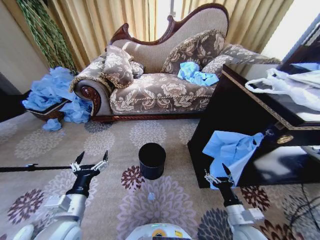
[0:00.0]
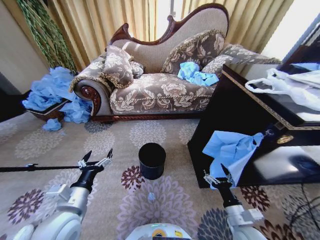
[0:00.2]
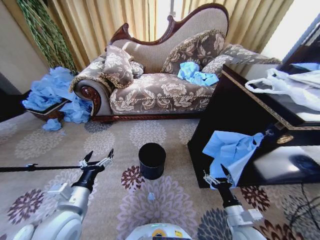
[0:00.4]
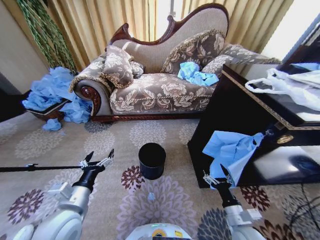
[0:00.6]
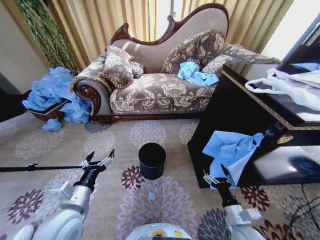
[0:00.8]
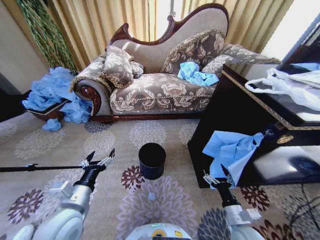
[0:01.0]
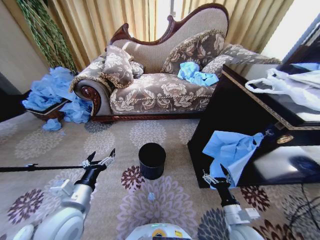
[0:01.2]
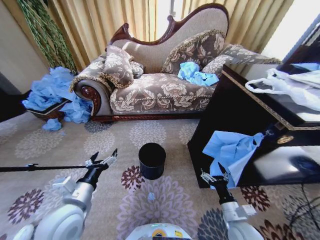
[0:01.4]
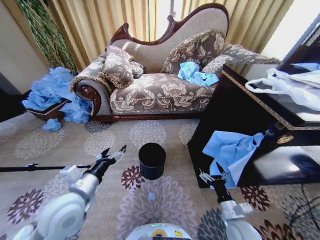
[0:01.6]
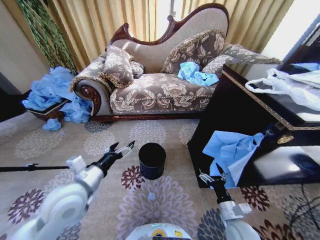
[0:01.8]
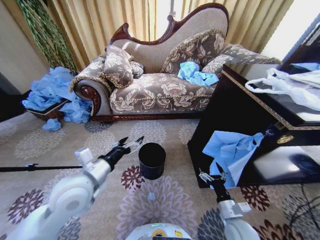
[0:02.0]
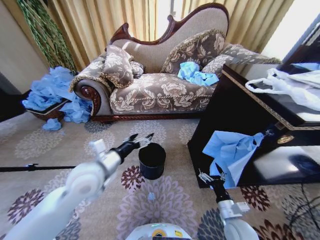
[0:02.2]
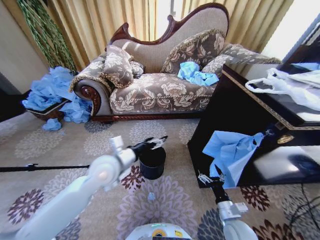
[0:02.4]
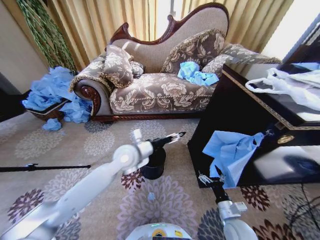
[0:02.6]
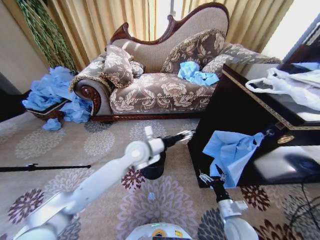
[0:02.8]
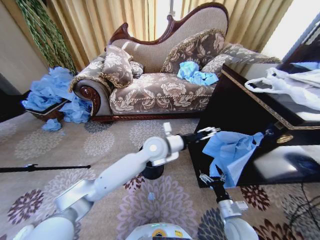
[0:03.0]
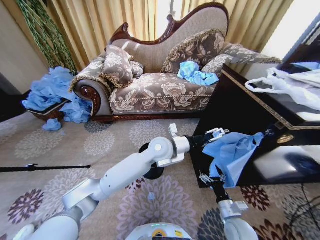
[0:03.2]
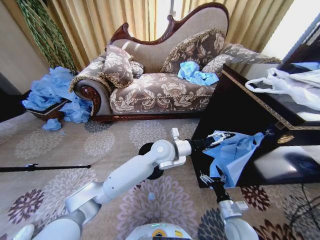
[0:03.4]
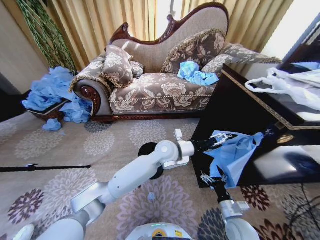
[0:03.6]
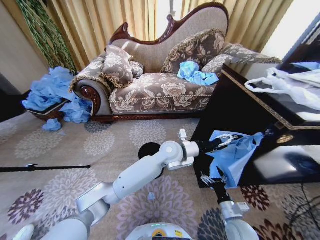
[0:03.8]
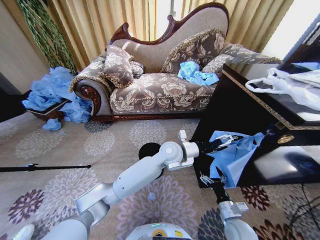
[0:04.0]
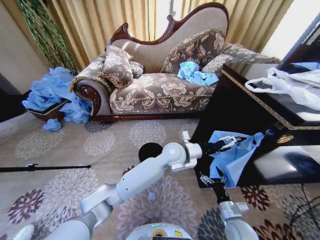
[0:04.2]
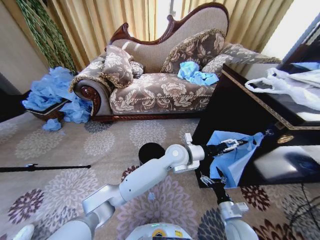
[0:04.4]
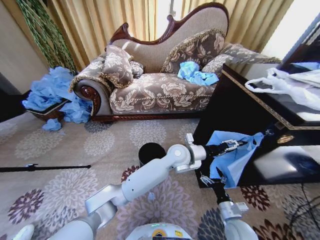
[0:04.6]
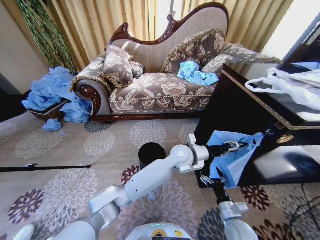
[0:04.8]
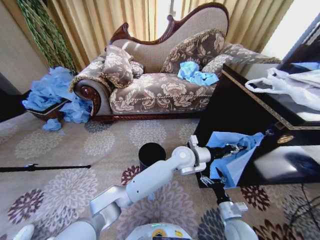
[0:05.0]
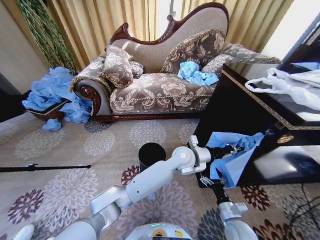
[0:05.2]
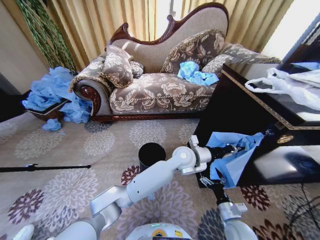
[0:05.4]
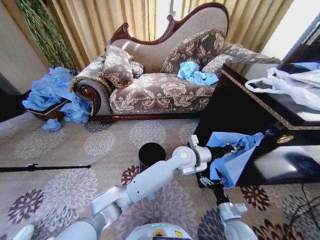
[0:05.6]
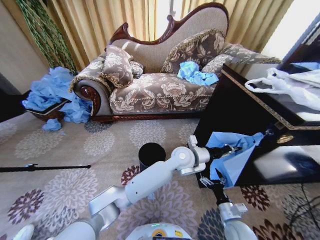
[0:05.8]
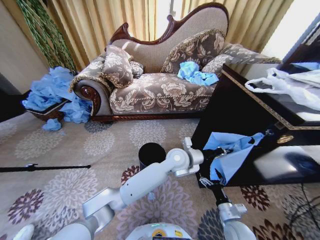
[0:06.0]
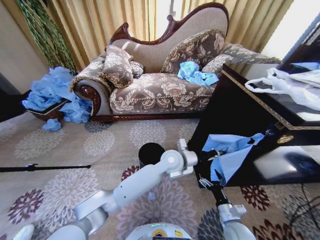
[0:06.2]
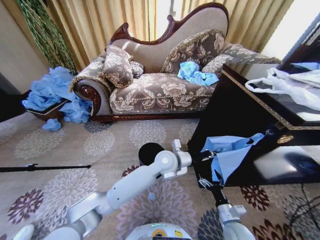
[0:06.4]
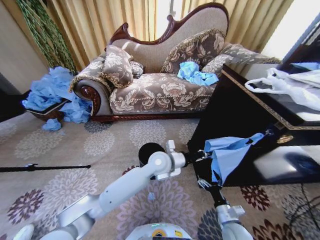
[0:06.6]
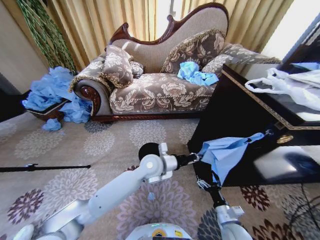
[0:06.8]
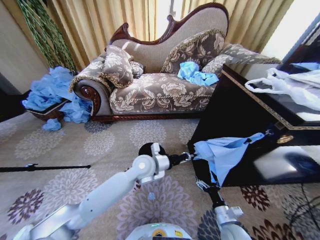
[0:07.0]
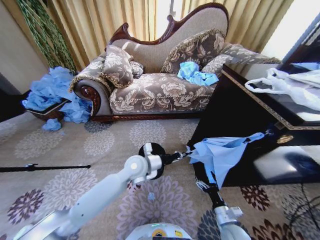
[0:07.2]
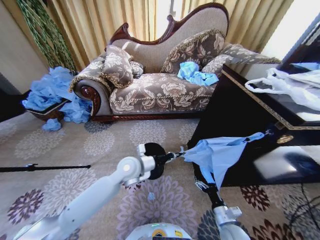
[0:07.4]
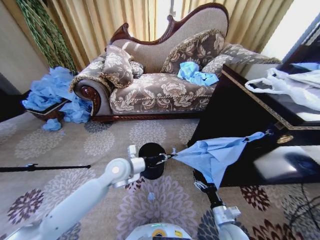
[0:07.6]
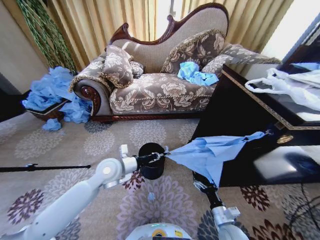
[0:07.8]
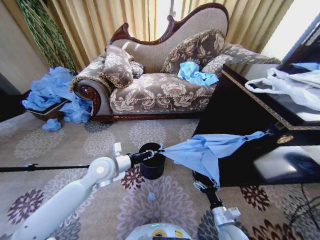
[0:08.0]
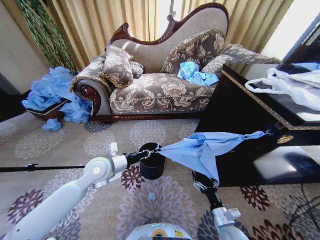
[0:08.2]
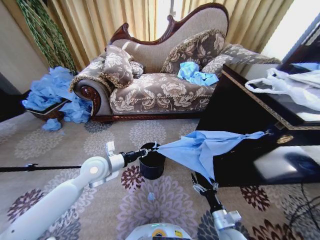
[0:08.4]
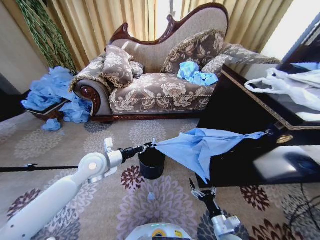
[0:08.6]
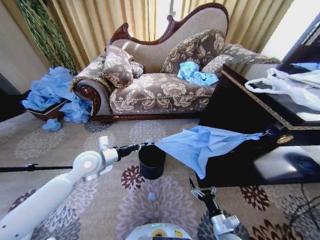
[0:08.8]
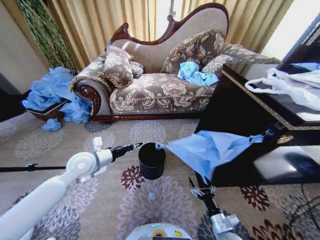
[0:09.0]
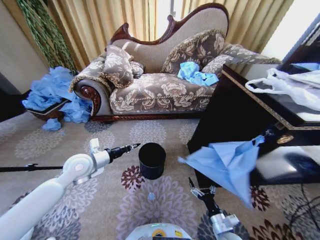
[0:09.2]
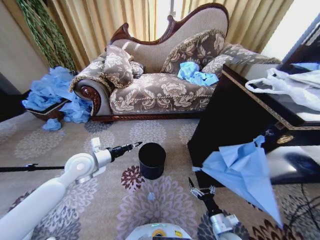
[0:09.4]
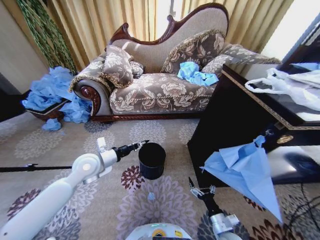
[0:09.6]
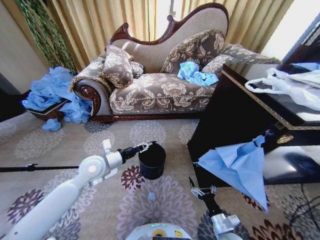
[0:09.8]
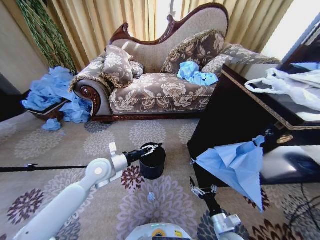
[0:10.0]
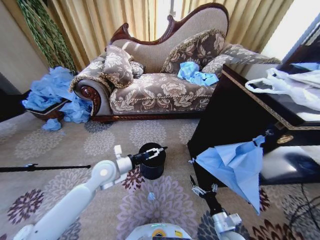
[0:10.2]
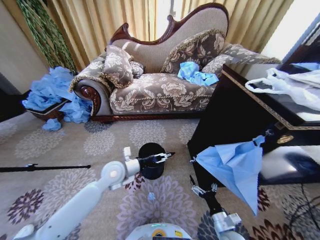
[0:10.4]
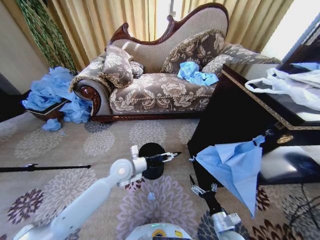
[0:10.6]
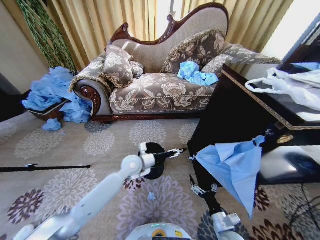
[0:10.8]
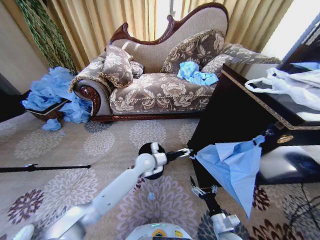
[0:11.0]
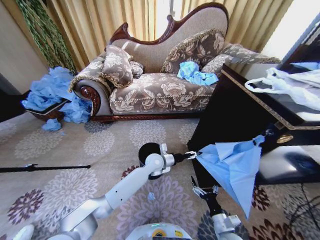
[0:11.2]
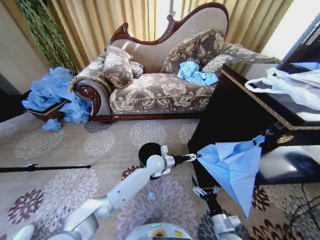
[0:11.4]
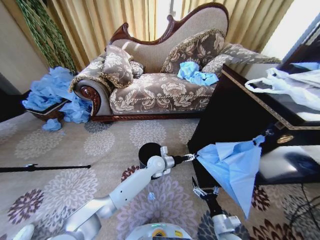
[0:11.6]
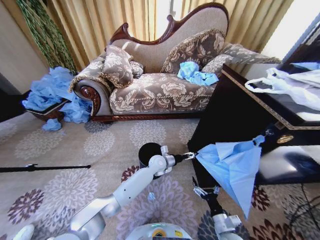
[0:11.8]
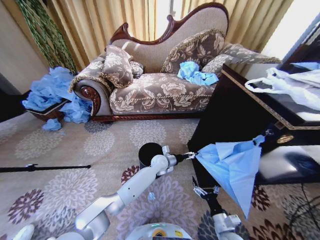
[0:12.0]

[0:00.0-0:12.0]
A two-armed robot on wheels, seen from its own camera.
Task of the whole recording: Place a garbage bag over the trash bin.
0:01.6 to 0:03.0: The left gripper heads to the right and forward, covering roughly 30 cm.
0:03.0 to 0:04.4: The left gripper goes about 10 cm to the right.
0:04.4 to 0:06.0: The left gripper closes.
0:06.0 to 0:07.6: The left gripper heads to the left, covering approximately 20 cm.
0:07.6 to 0:09.0: The left gripper heads to the left, covering approximately 15 cm.
0:09.0 to 0:10.4: The left gripper heads to the right and downward, covering some 10 cm, and opens.
0:10.4 to 0:12.0: The left gripper moves to the right, forward and downward, approximately 25 cm.

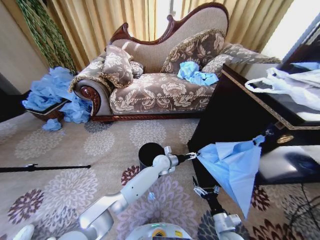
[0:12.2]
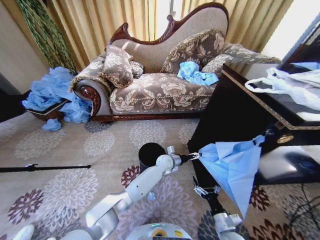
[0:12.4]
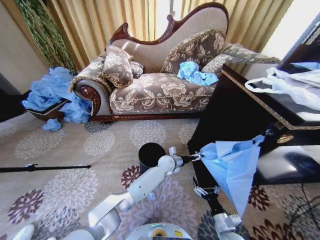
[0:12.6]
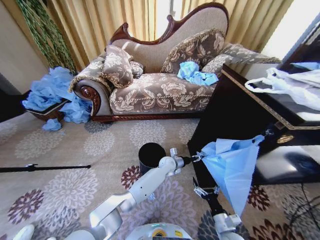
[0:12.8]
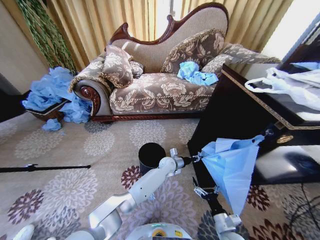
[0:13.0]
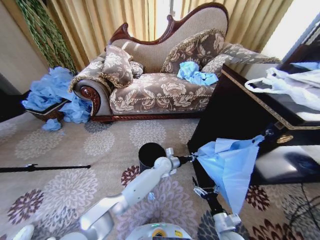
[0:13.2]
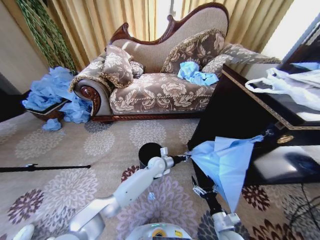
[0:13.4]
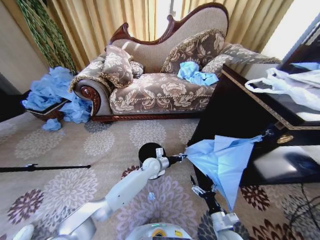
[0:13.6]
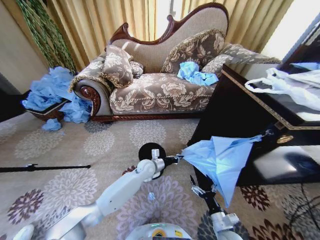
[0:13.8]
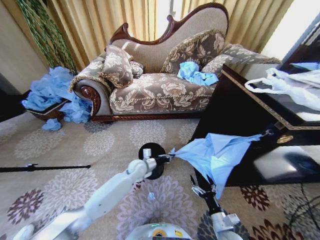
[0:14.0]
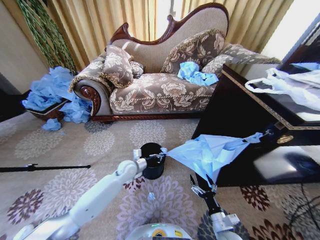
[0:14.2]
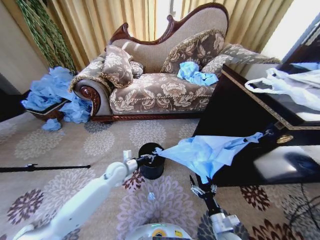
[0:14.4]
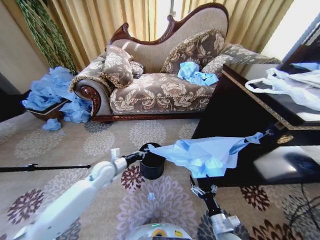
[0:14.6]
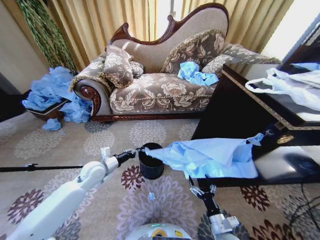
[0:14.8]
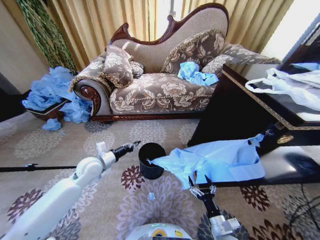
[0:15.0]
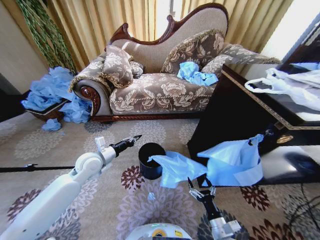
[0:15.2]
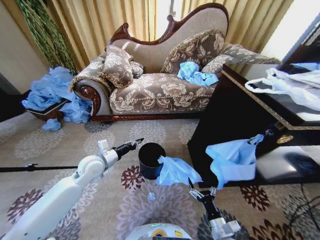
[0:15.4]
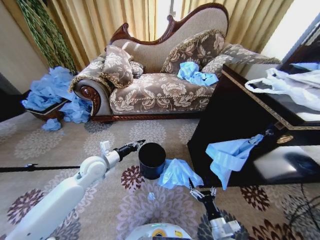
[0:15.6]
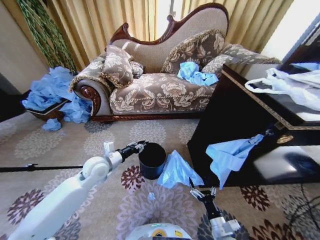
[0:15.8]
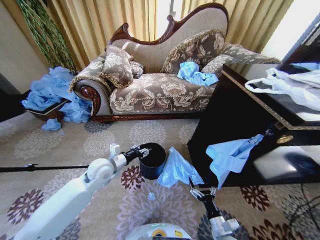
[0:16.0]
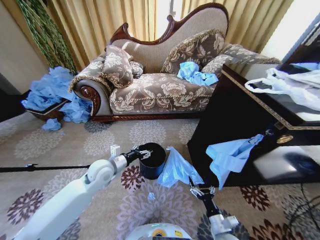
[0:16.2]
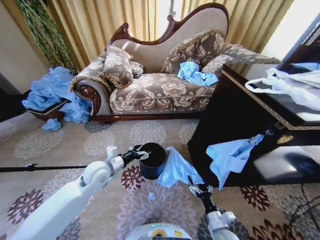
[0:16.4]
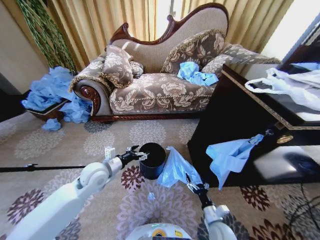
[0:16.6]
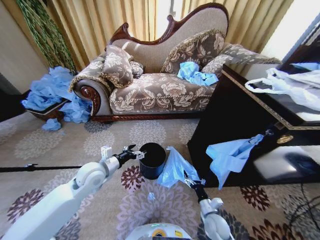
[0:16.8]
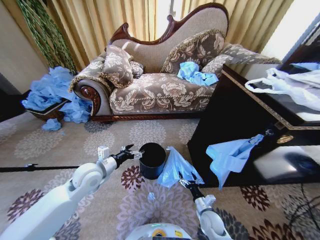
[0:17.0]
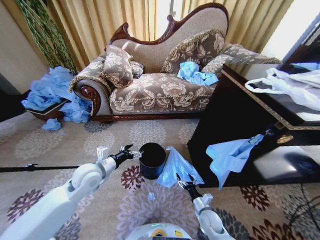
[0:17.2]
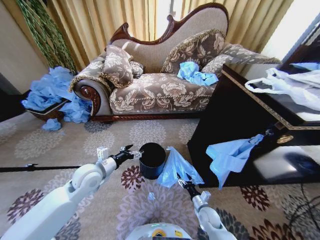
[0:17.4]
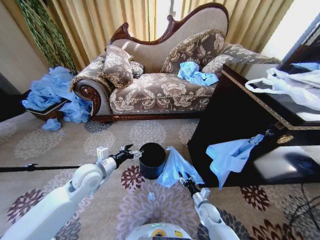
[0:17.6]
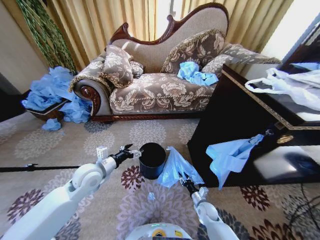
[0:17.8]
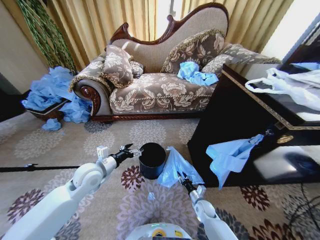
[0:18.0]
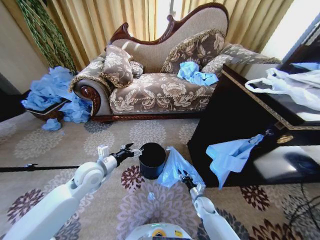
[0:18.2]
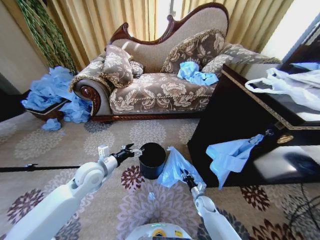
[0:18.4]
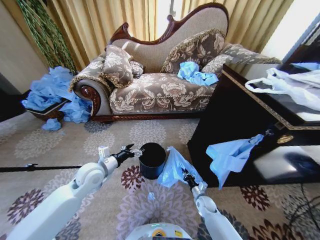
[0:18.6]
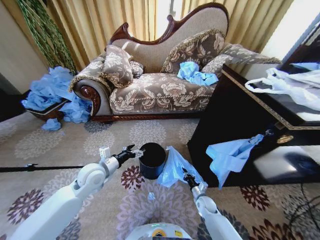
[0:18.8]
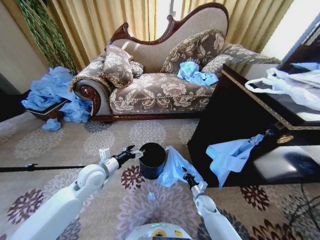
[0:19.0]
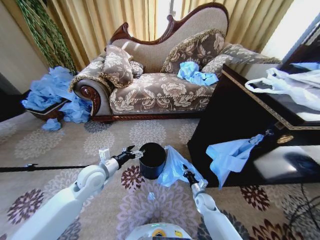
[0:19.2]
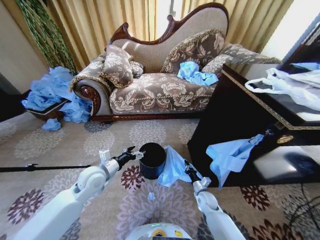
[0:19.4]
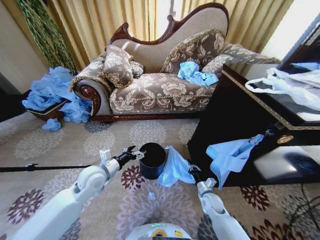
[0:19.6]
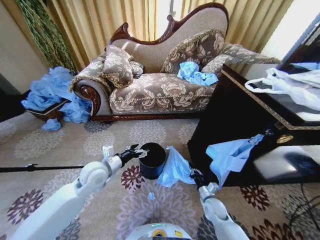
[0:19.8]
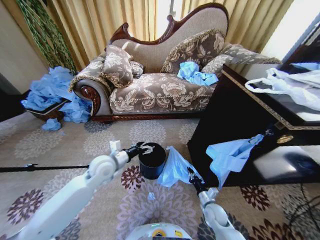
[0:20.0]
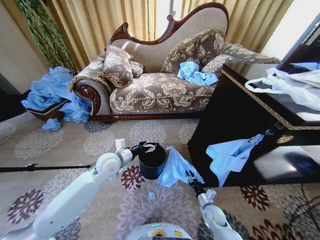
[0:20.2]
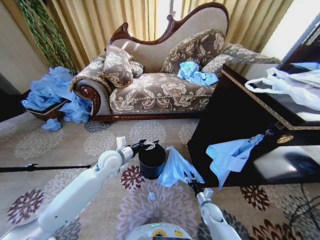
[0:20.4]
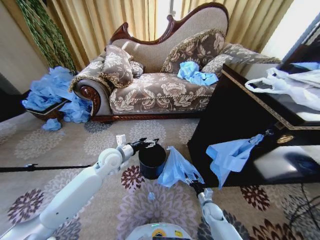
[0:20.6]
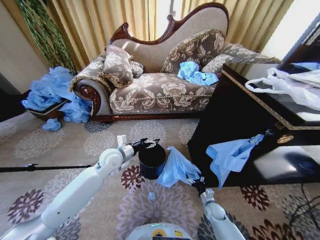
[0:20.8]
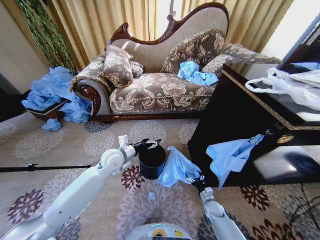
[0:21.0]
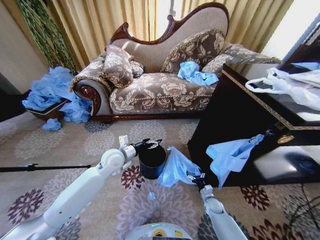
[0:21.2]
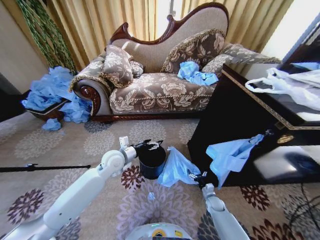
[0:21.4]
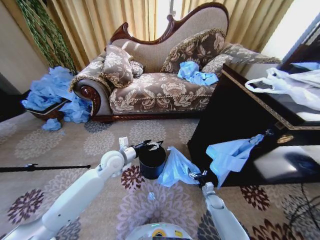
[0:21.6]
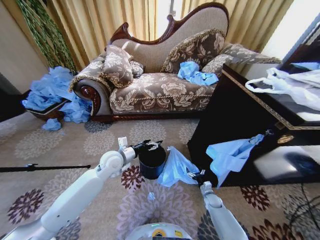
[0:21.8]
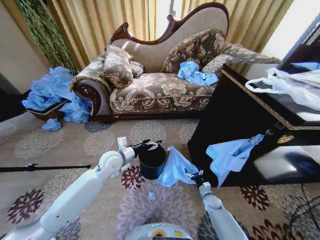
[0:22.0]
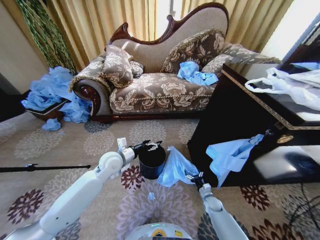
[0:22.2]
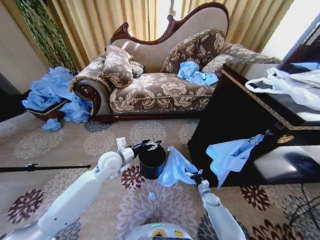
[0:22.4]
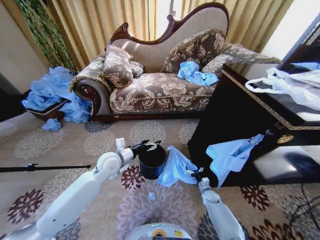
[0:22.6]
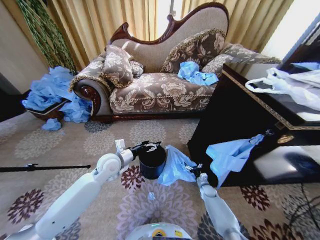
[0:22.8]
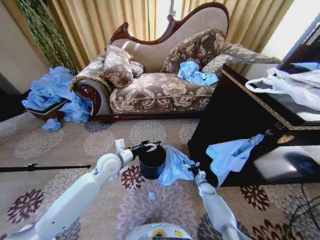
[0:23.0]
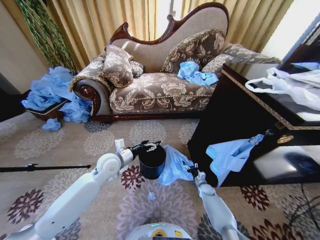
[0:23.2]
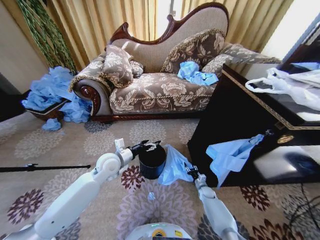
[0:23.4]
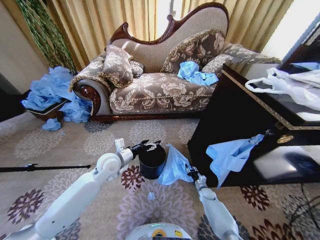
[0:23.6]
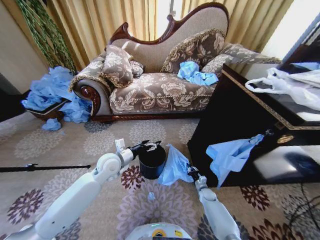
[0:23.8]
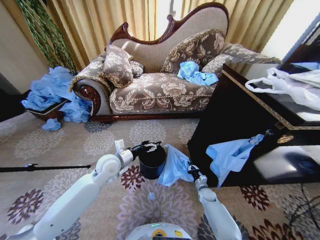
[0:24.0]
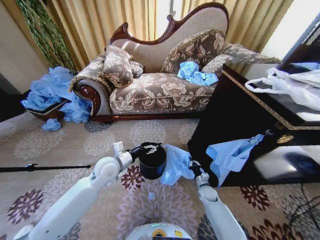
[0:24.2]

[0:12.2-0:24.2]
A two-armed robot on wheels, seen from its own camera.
Task of the whole recording: Place a garbage bag over the trash bin.
0:12.2 to 0:13.8: The left gripper travels to the left by some 10 cm, and closes its fingers.
0:13.8 to 0:15.2: The left gripper moves to the left and upward, approximately 25 cm.
0:15.2 to 0:16.6: The left gripper shifts by roughly 5 cm, and opens its fingers. Meanwhile the right gripper heads forward, covering some 5 cm.
0:16.6 to 0:18.2: The right gripper heads forward and downward, covering about 15 cm, and closes its fingers.
0:18.2 to 0:19.8: The right gripper moves upward, roughly 10 cm, and closes.
0:19.8 to 0:21.2: The left gripper shifts approximately 5 cm forward, while the right gripper is displaced downward by some 10 cm, and opens.
0:21.2 to 0:22.6: There are only small adjustments of the grippers.
0:22.6 to 0:24.2: The right gripper changes place by about 5 cm, and closes.
